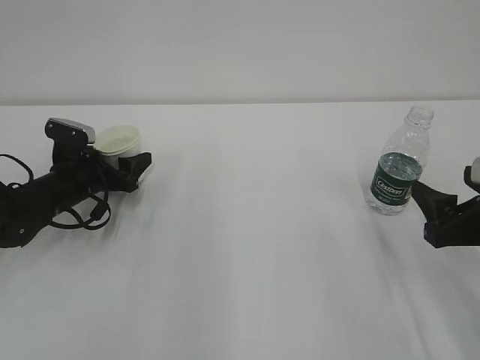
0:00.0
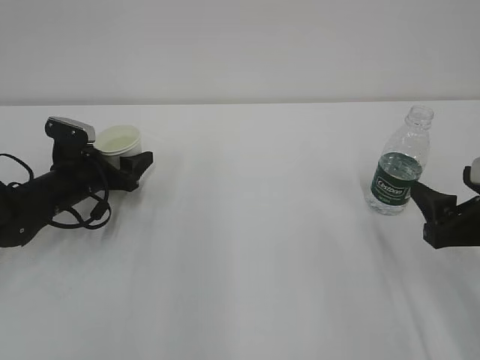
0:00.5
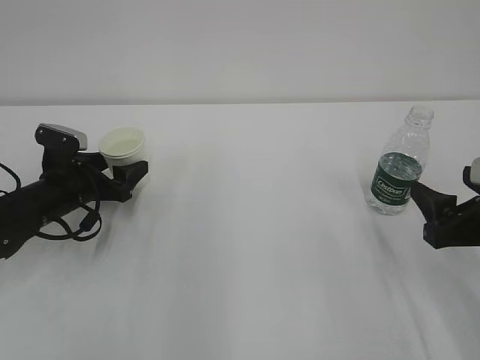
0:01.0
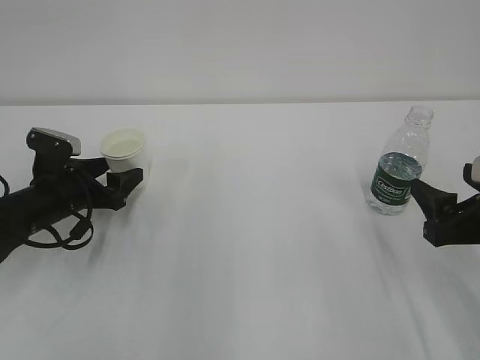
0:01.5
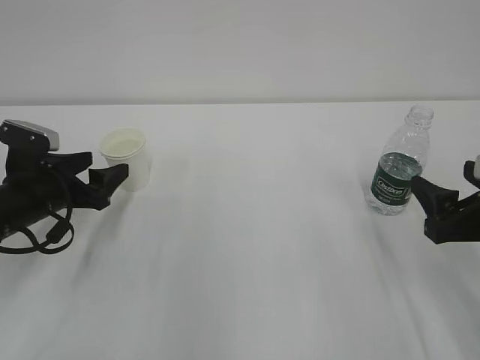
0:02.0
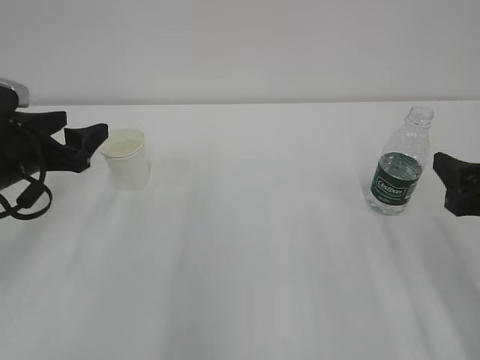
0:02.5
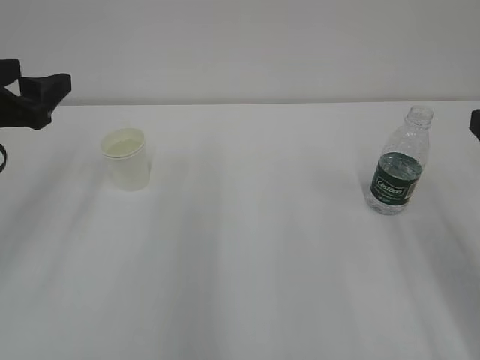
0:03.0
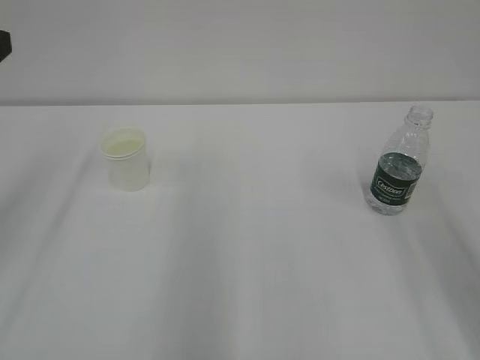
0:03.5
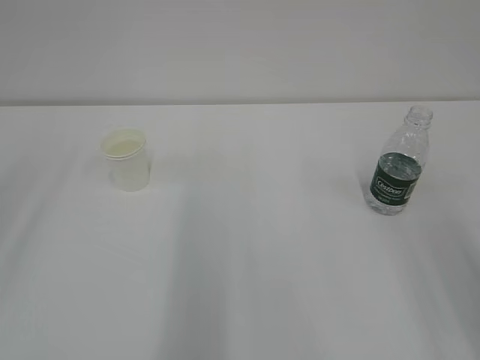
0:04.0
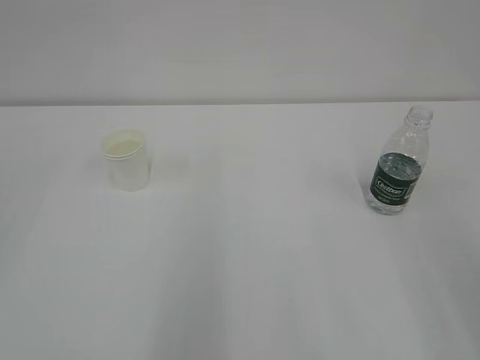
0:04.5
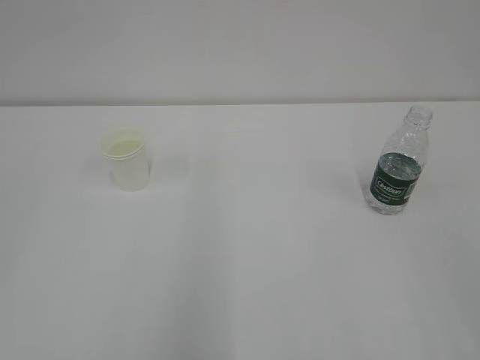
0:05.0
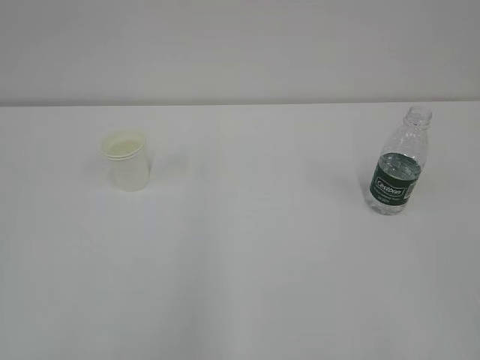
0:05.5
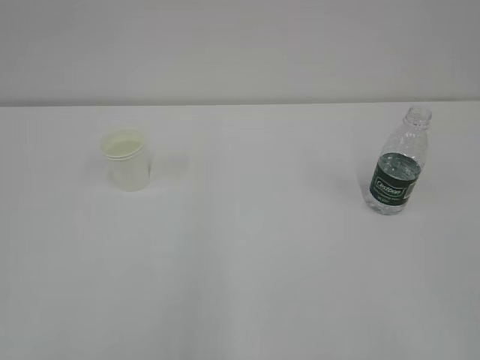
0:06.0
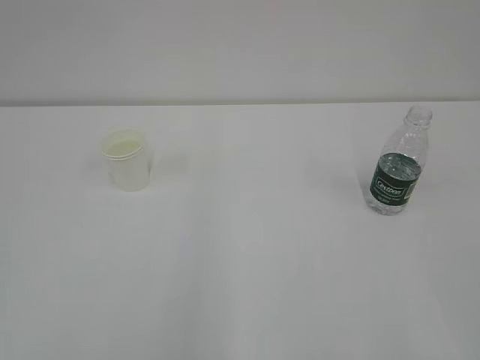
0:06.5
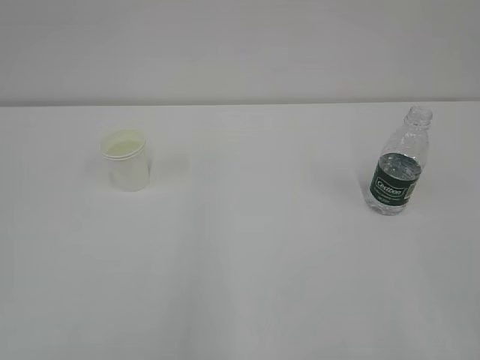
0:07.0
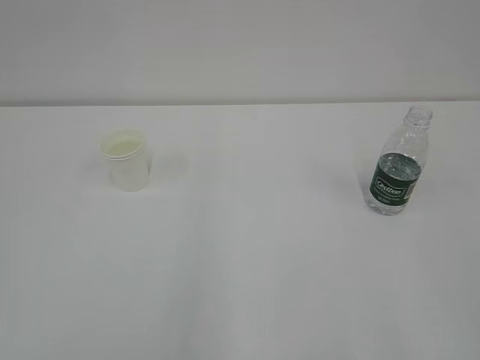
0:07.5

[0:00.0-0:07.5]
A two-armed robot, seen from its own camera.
0:00.0 to 0:02.0: The left gripper shifts some 10 cm backward.
0:02.0 to 0:04.0: The left gripper travels upward and backward by roughly 30 cm. Meanwhile the right gripper shifts approximately 20 cm upward and backward.

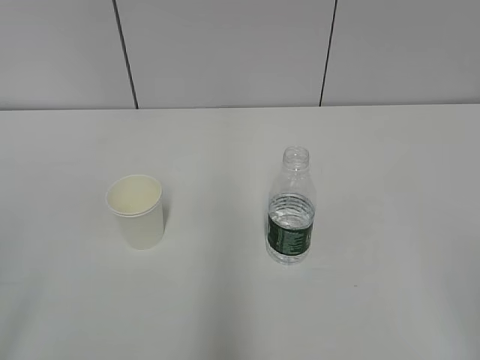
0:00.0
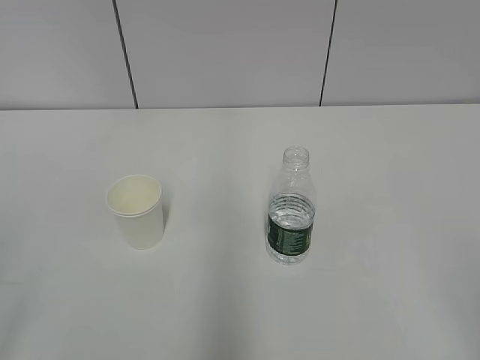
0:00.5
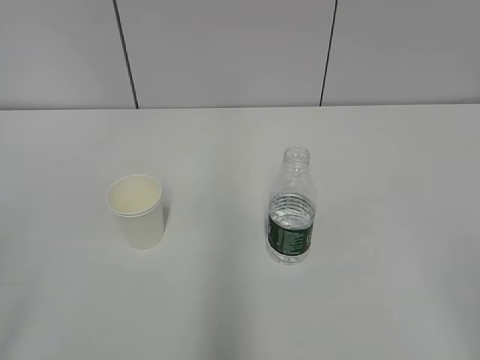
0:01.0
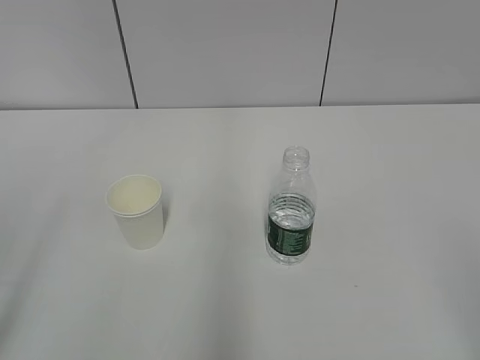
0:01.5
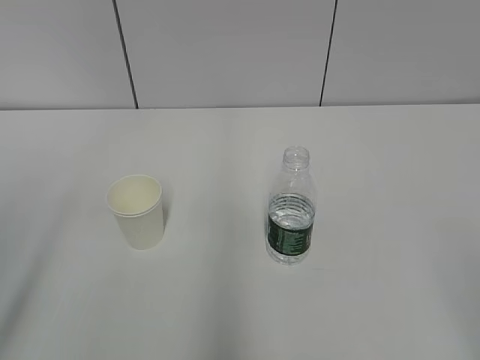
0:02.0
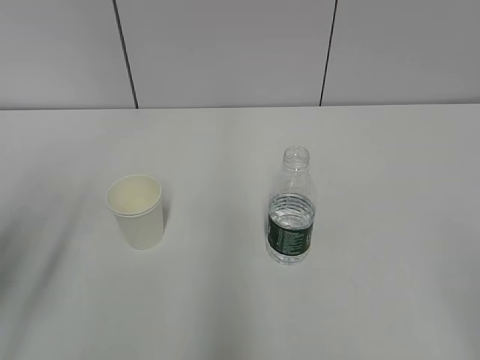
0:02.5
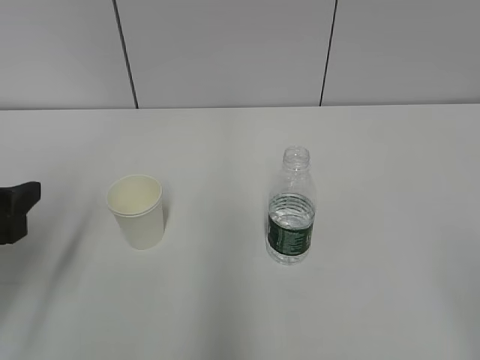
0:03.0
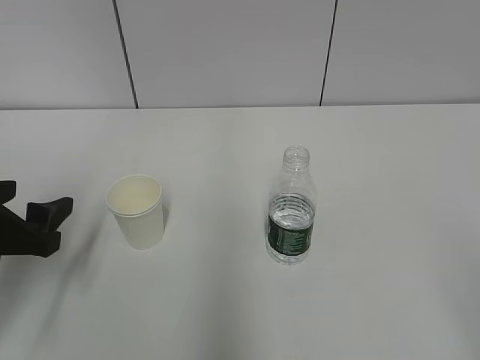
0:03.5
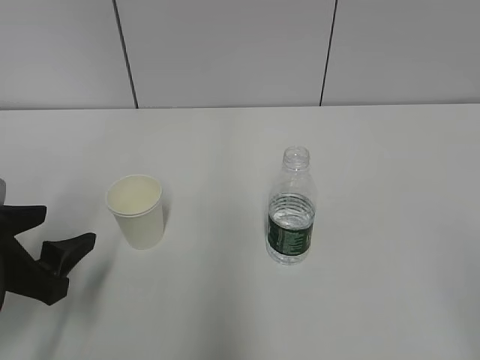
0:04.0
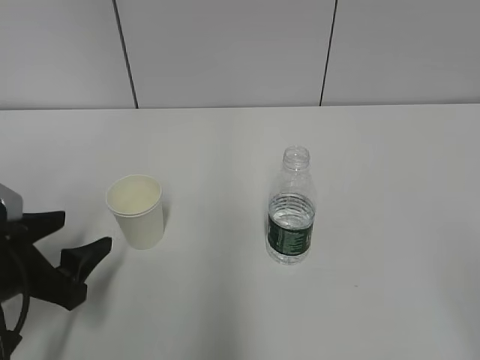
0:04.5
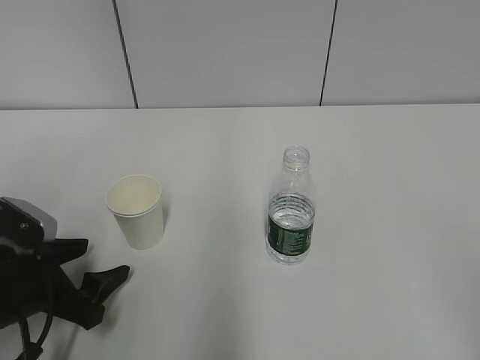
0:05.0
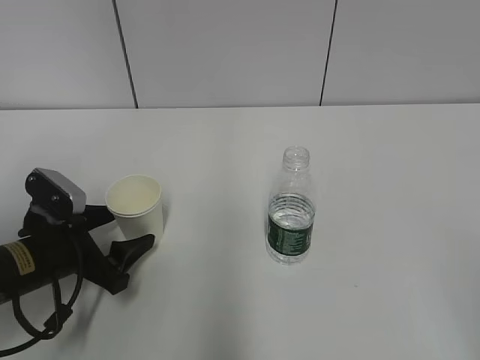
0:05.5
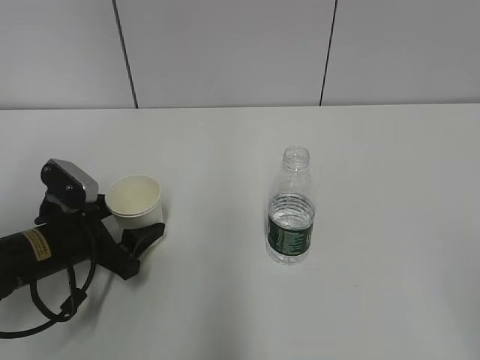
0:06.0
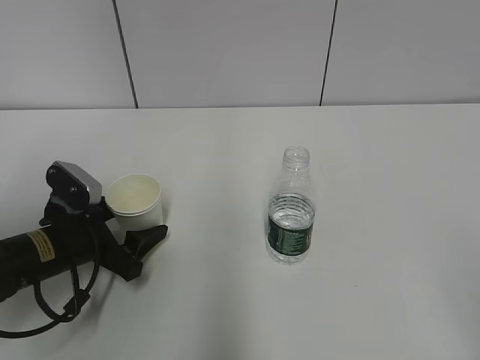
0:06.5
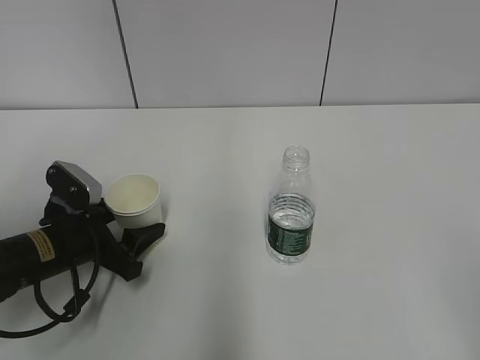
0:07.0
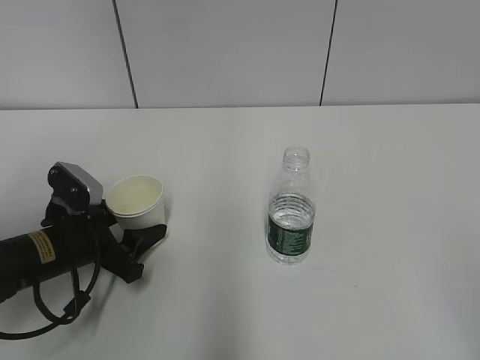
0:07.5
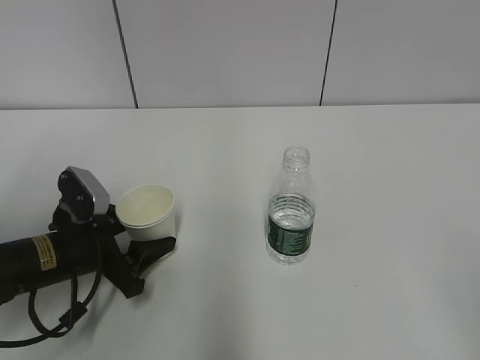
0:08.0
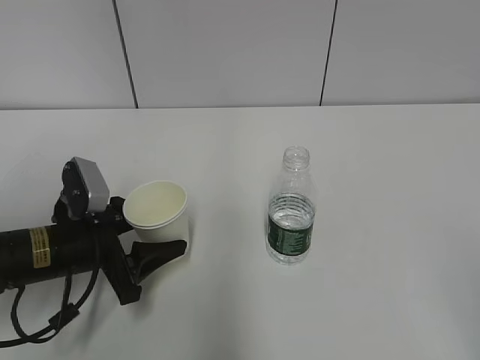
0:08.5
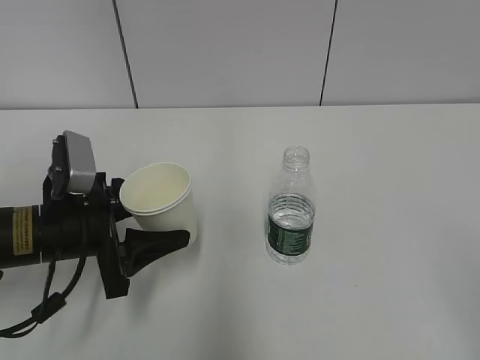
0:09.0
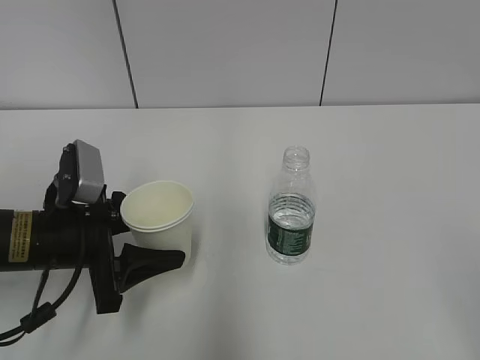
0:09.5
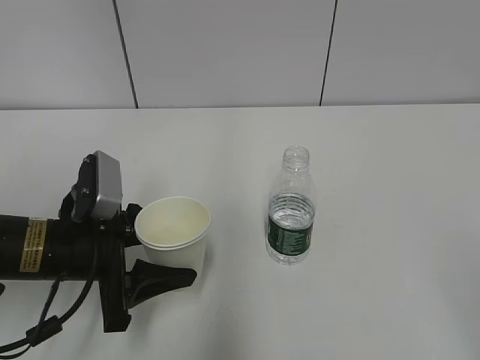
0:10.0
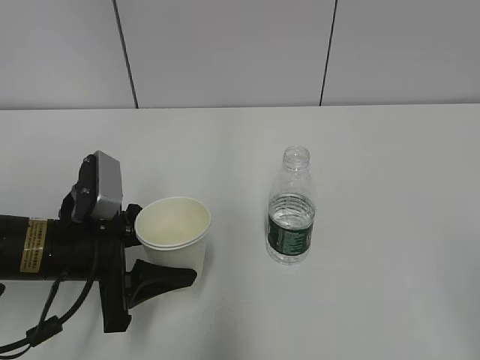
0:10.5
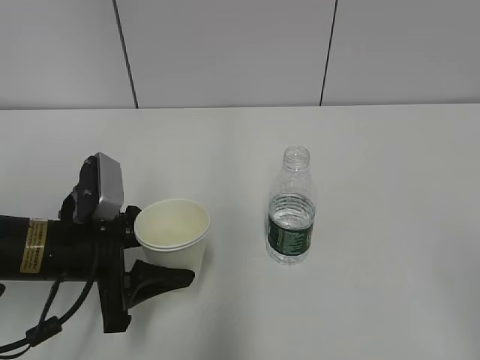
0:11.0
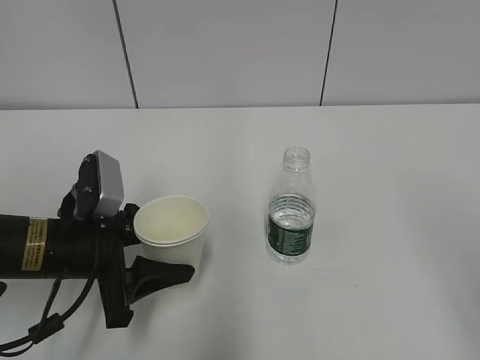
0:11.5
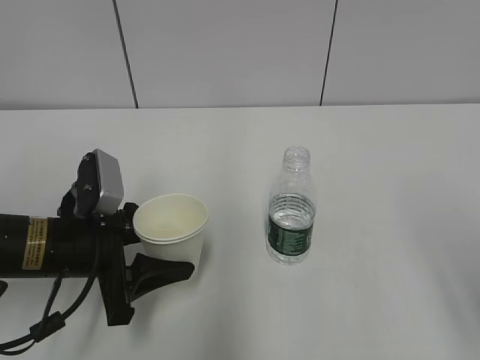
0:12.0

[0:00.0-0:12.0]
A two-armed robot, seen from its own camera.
Step, 0:00.0 to 0:06.5: Grab the paper cup with the left hand.
0:02.0 to 0:04.0: The left gripper goes approximately 20 cm downward and forward.
0:04.0 to 0:06.0: The left gripper moves forward and downward, roughly 10 cm.
0:06.0 to 0:08.0: The left gripper closes its fingers.
0:08.0 to 0:10.0: The left gripper goes about 5 cm upward.

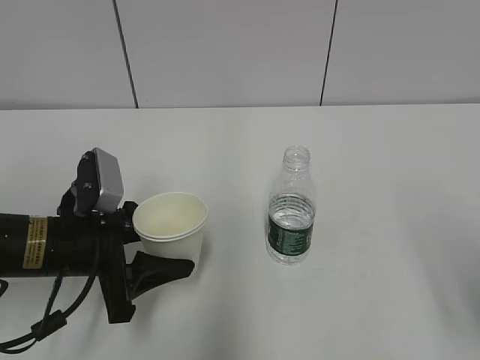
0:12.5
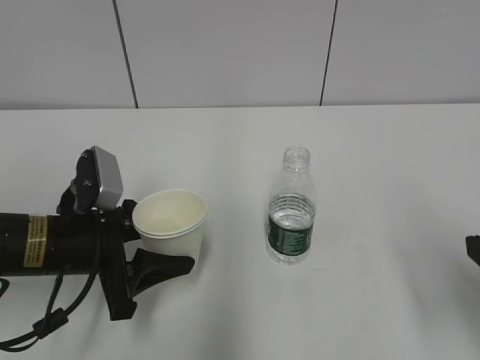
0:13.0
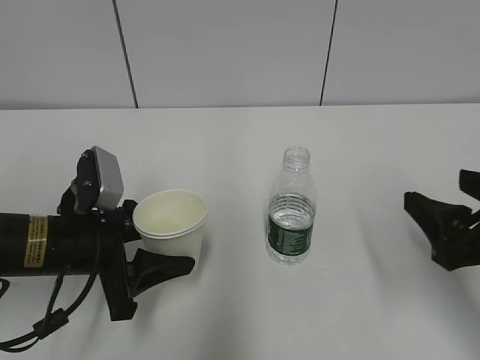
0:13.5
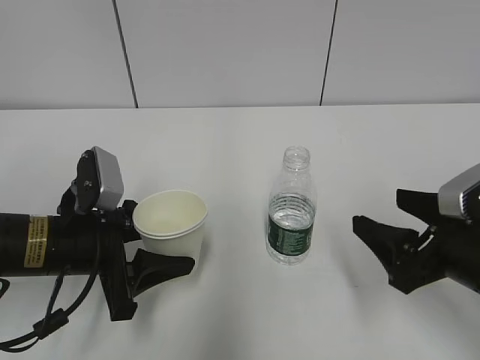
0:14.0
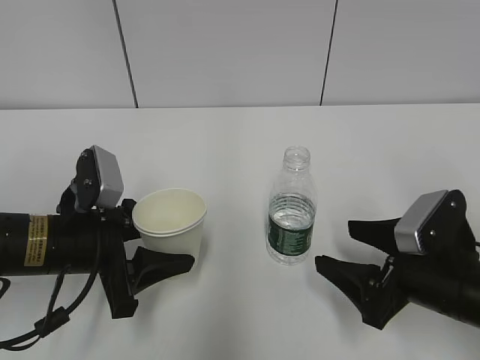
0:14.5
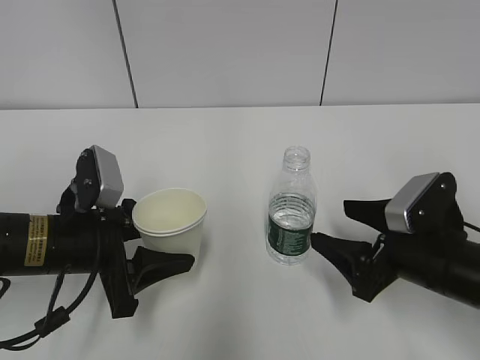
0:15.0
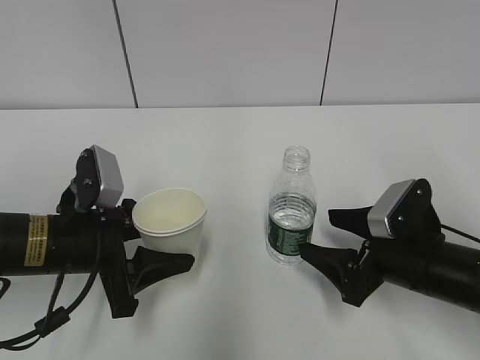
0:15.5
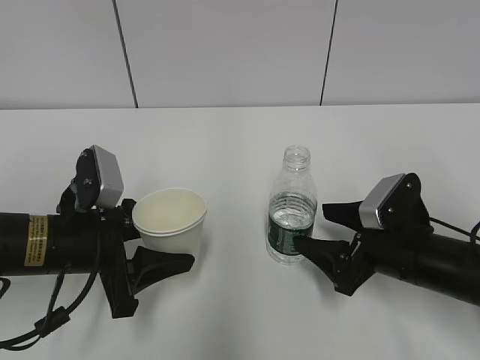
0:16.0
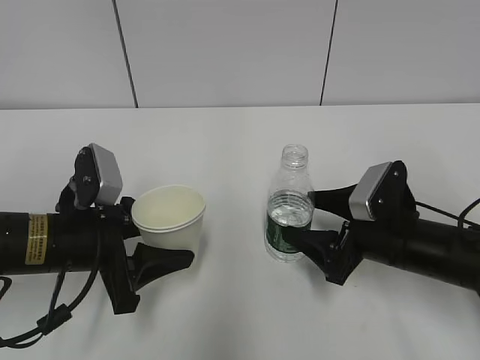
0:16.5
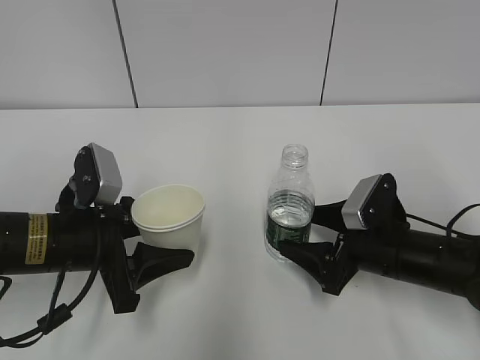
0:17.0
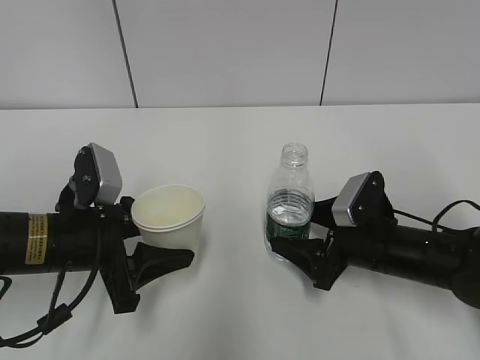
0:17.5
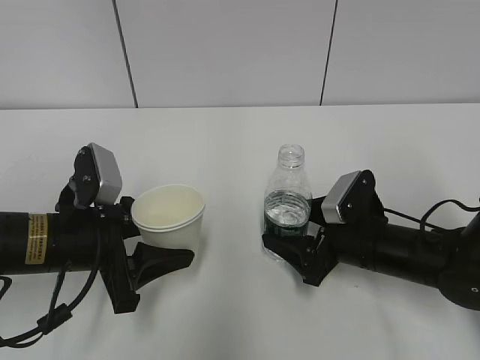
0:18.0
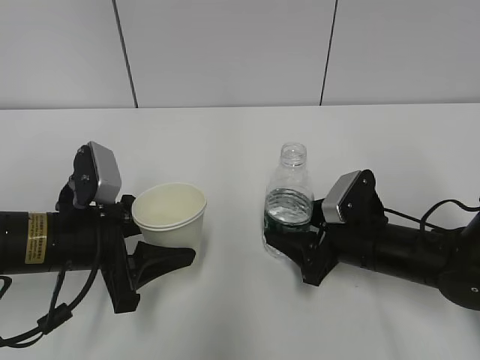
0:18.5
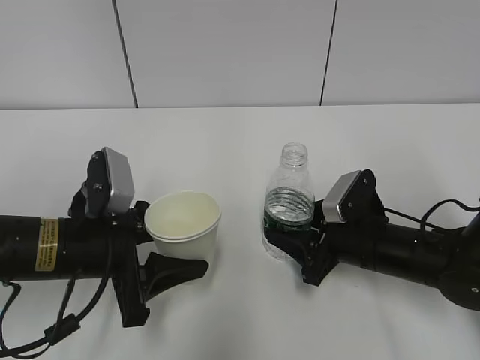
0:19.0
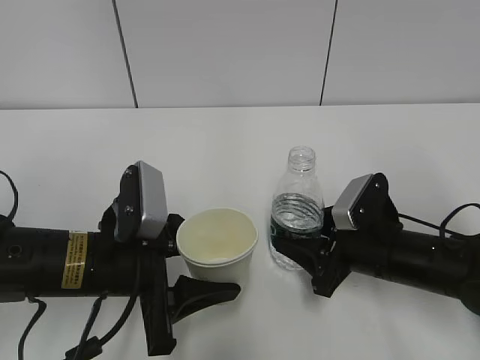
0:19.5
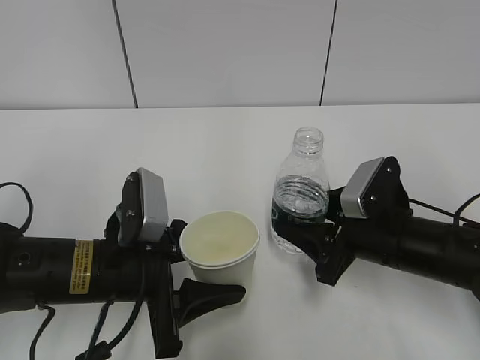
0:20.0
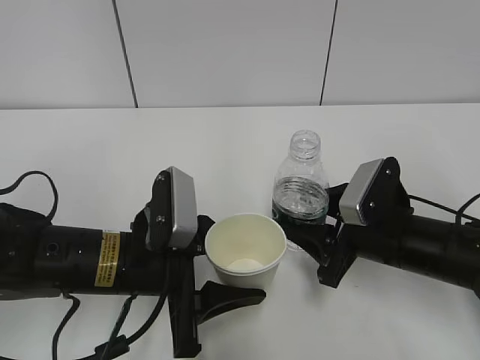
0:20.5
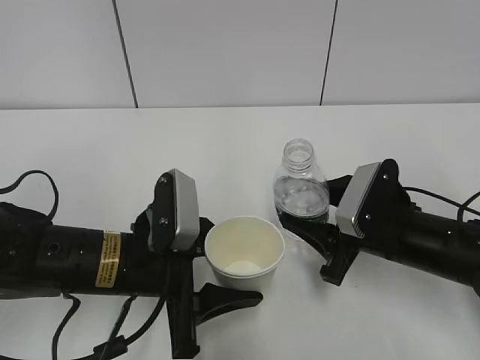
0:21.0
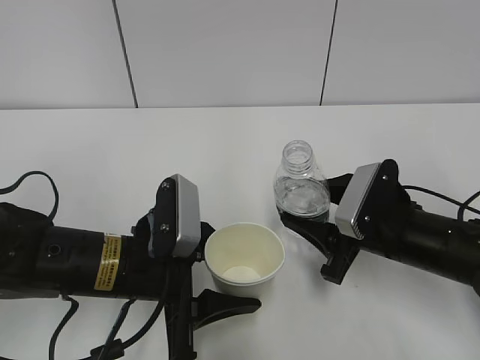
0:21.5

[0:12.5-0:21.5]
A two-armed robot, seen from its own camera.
Step, 0:12.5 to 0:16.0: Grab the water bottle with the right hand.
0:12.5 to 0:14.5: The right gripper goes approximately 20 cm downward, forward and to the left.
0:14.5 to 0:17.0: The right gripper is displaced forward by approximately 5 cm.
0:17.0 to 0:19.5: The left gripper changes place by roughly 5 cm. Meanwhile the right gripper closes.
